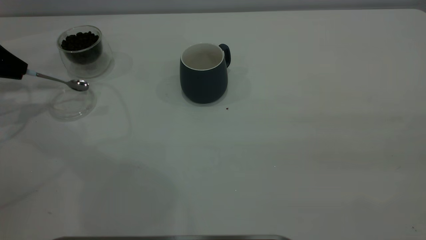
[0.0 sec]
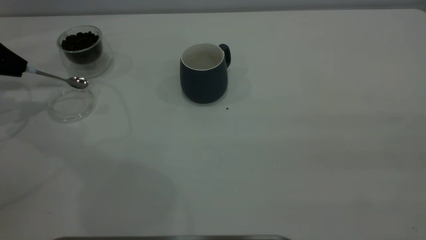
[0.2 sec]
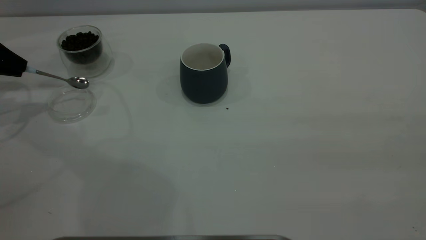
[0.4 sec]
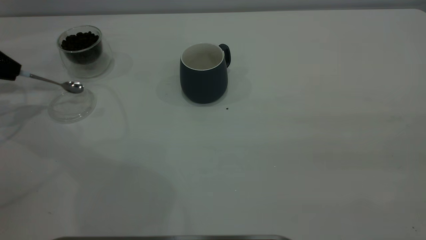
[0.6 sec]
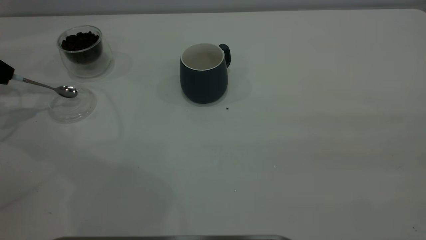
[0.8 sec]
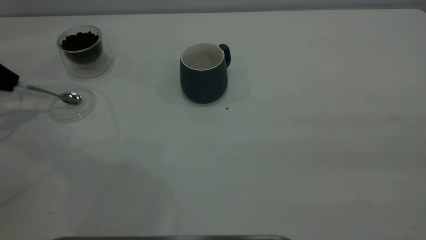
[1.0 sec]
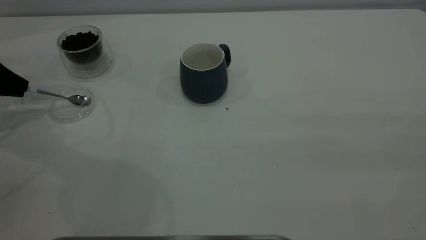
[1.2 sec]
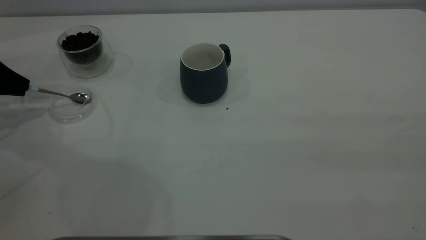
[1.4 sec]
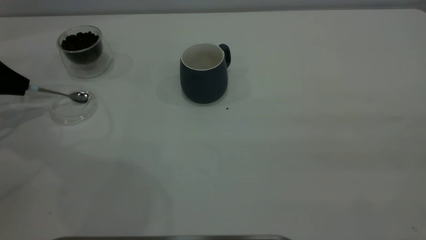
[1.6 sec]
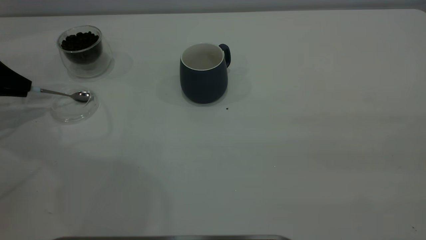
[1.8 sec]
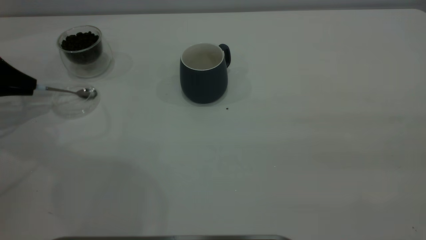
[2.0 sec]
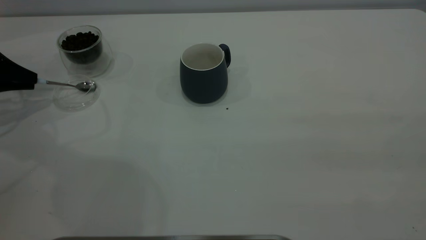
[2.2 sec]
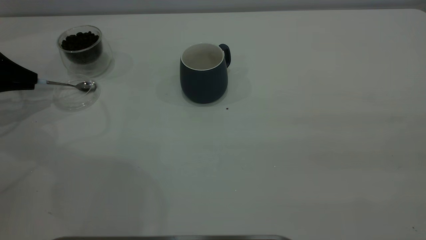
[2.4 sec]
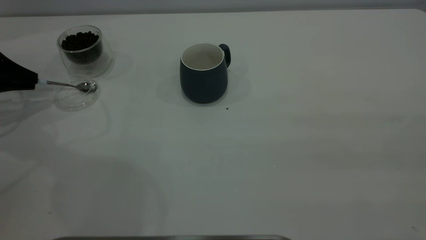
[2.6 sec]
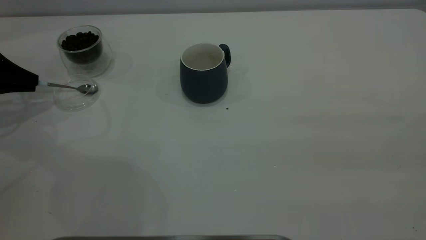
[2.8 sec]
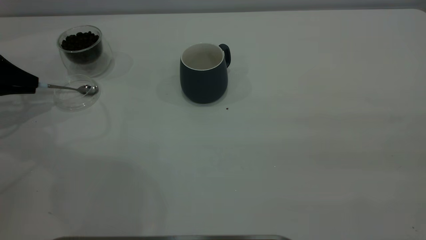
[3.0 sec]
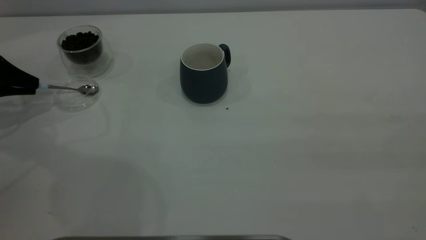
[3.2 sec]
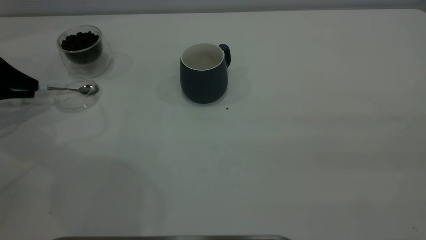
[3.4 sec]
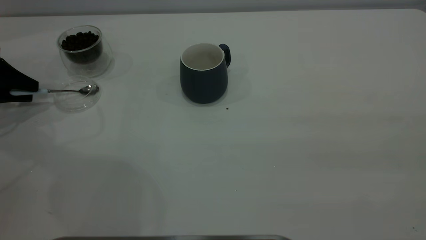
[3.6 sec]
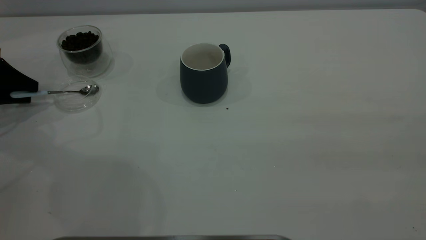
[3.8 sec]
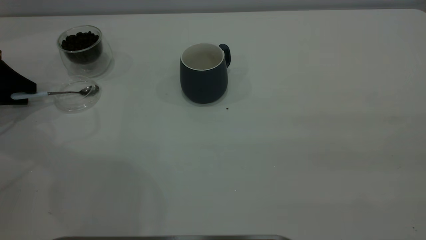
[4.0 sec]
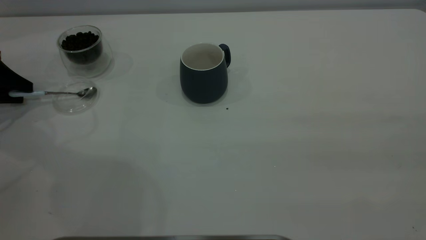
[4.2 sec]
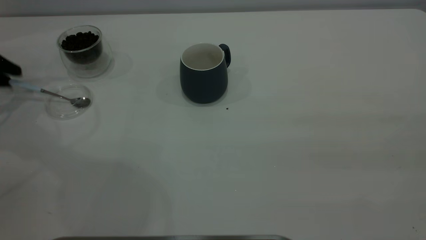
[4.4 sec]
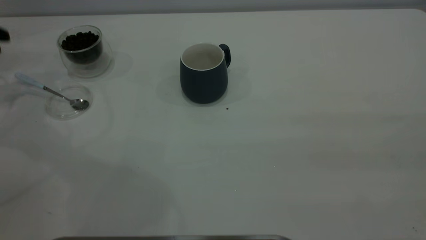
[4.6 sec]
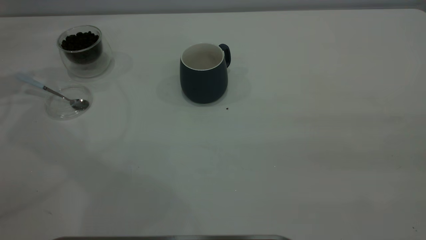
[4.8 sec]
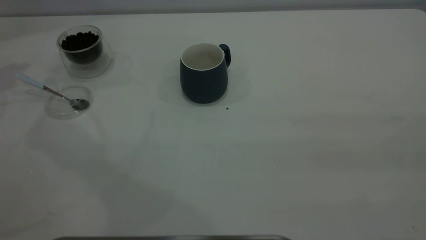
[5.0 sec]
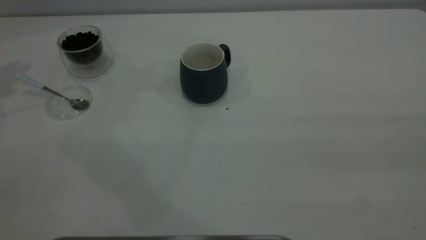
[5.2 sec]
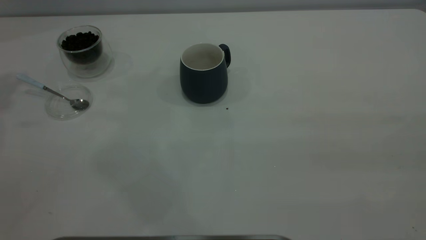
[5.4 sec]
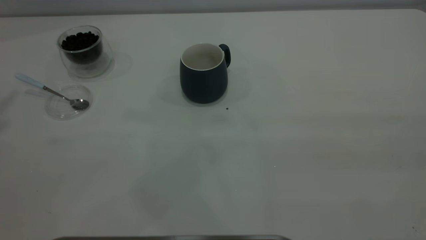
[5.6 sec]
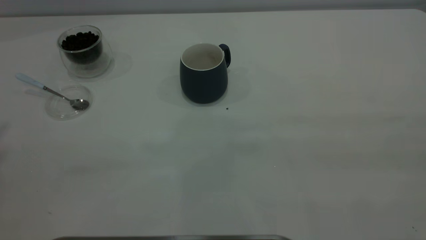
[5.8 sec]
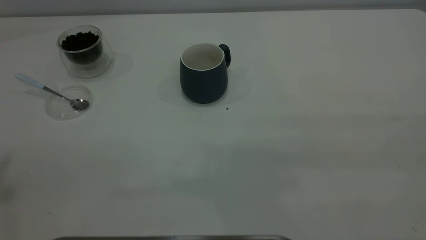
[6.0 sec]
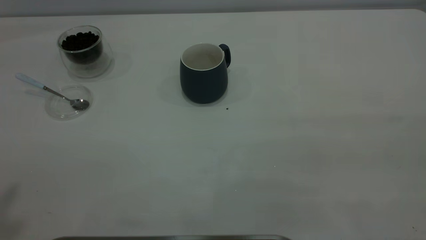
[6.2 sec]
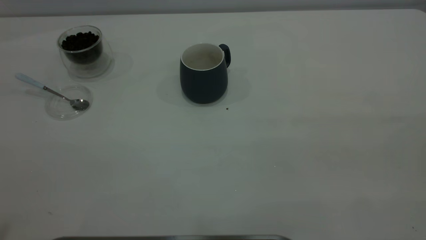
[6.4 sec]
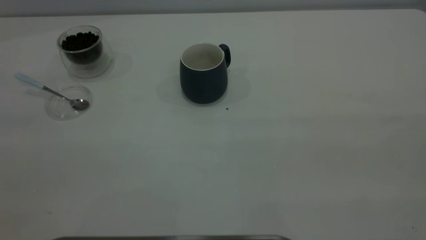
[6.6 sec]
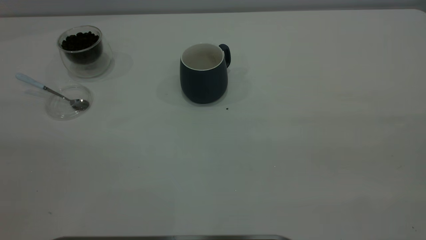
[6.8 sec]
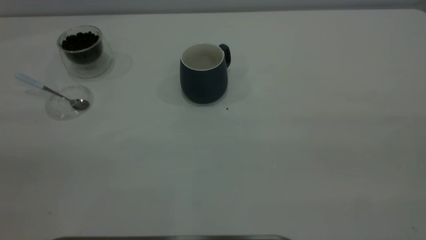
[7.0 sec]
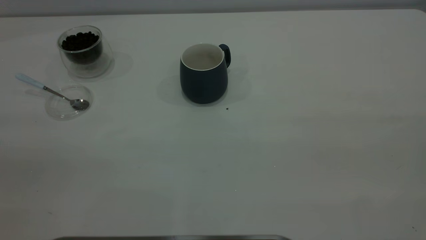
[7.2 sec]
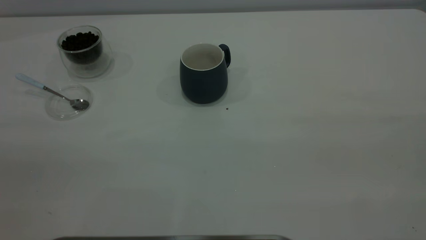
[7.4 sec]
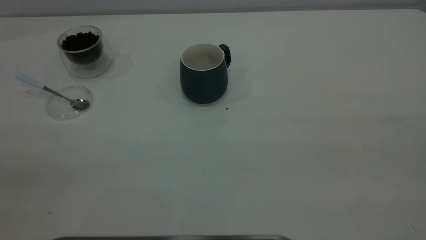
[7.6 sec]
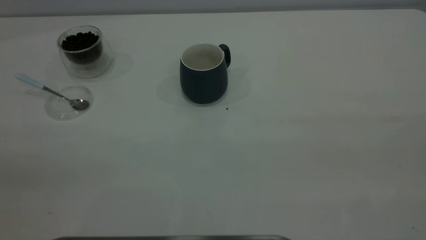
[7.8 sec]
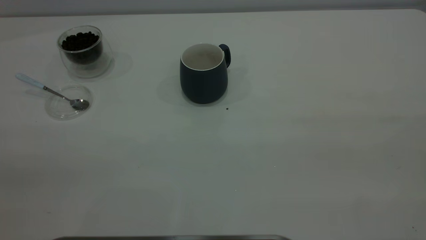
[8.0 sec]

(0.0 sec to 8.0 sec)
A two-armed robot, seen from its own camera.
Task of the whole recording: the right gripper place the grey cup in the center of the table, the left gripper take the blue spoon from the cup lid and scoop out the coffee beans from the coffee cup and put them into the grey cup, the left gripper put the spoon back into the cup lid.
Step, 0.0 sec - 4.4 sec: Place the spoon back in its original place.
0.0 sec - 3.2 sec: The grippers stay close to where they were, moving slightly.
3.2 sec - 4.8 sec: The left gripper goes about 15 cm upward, and opens.

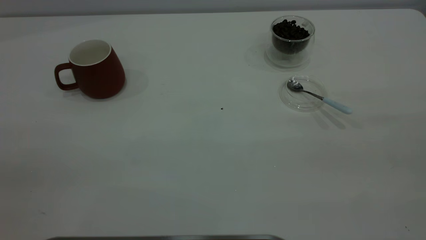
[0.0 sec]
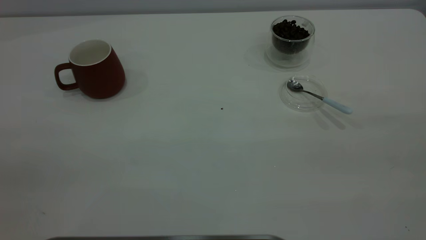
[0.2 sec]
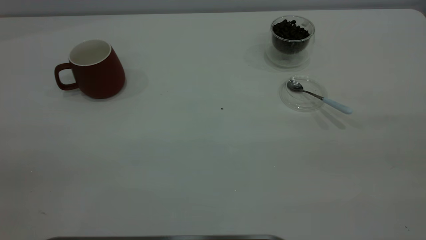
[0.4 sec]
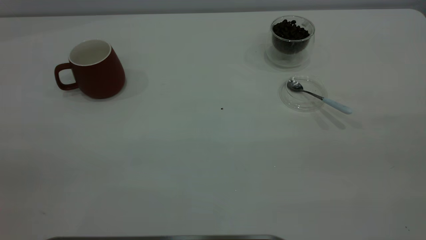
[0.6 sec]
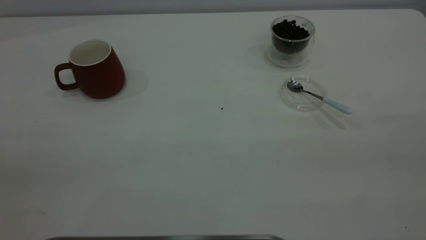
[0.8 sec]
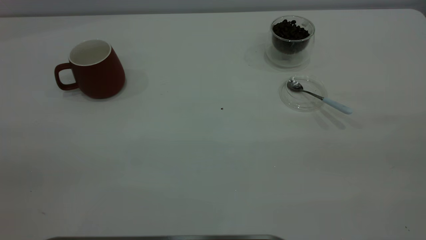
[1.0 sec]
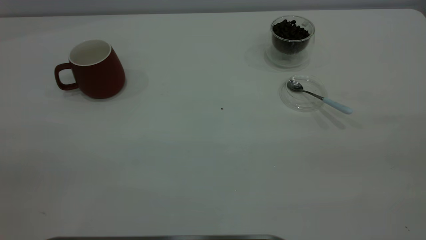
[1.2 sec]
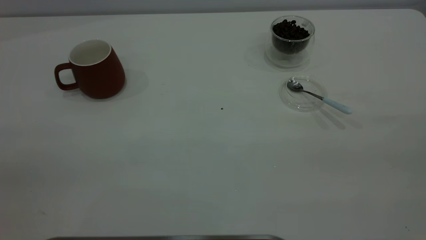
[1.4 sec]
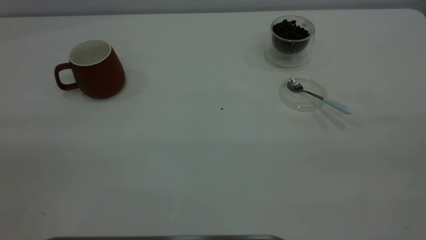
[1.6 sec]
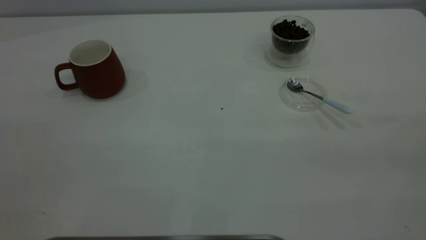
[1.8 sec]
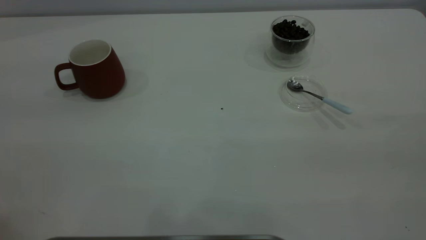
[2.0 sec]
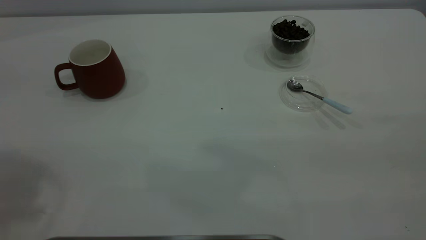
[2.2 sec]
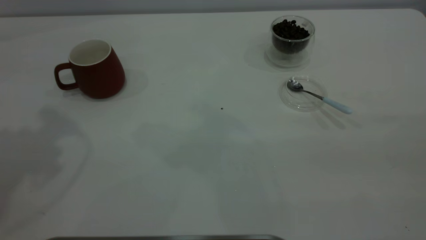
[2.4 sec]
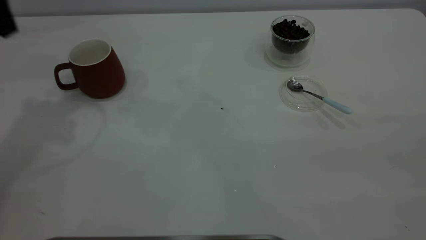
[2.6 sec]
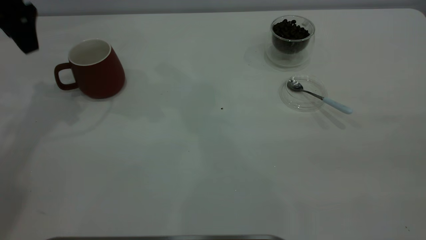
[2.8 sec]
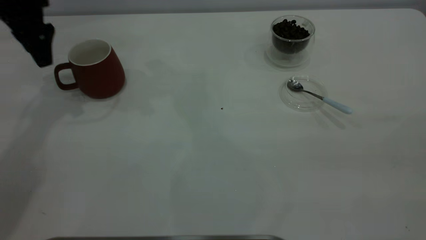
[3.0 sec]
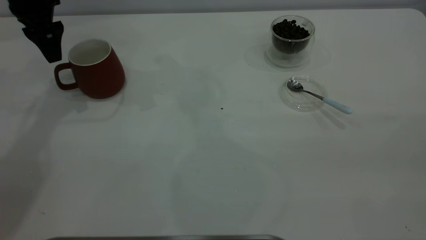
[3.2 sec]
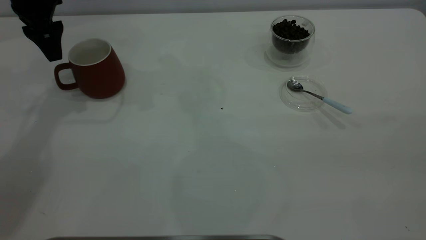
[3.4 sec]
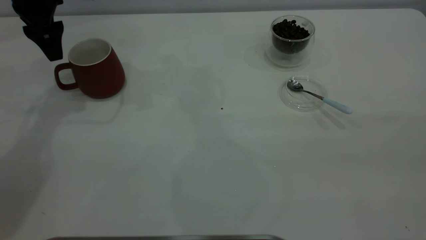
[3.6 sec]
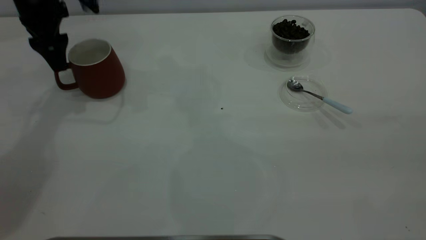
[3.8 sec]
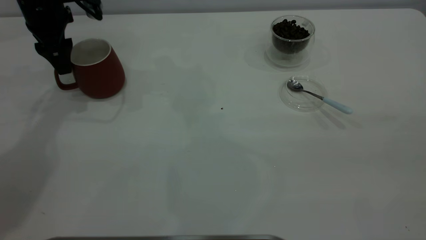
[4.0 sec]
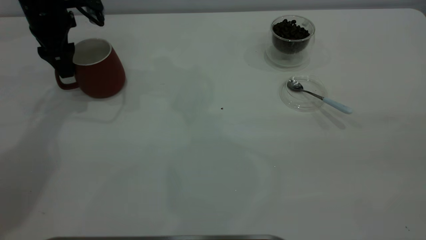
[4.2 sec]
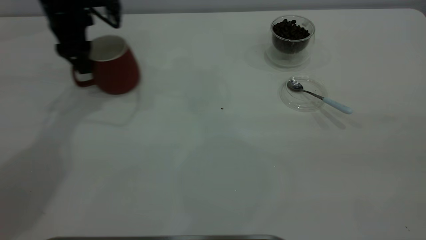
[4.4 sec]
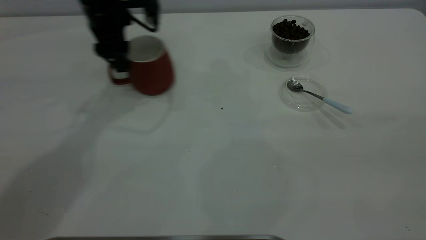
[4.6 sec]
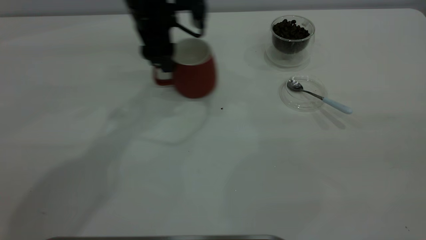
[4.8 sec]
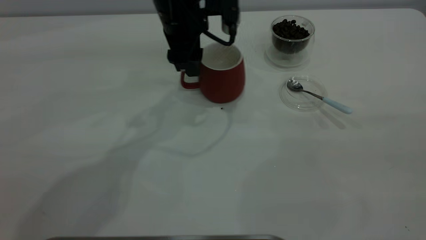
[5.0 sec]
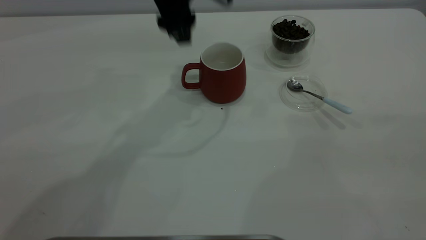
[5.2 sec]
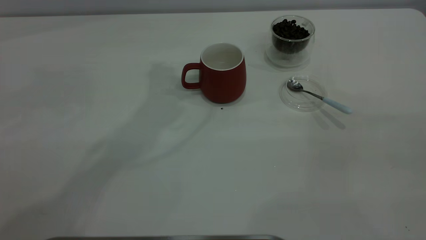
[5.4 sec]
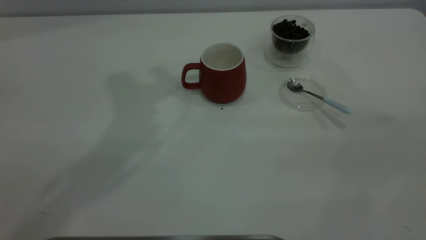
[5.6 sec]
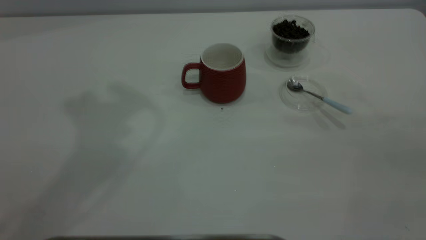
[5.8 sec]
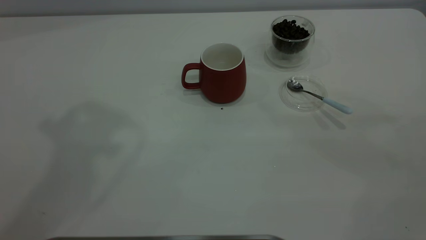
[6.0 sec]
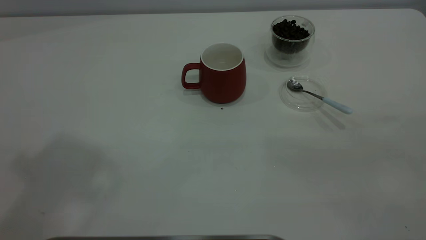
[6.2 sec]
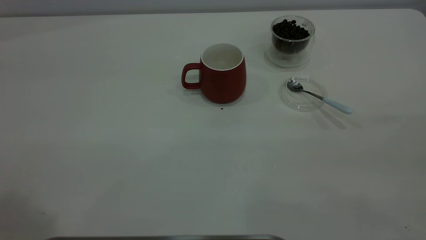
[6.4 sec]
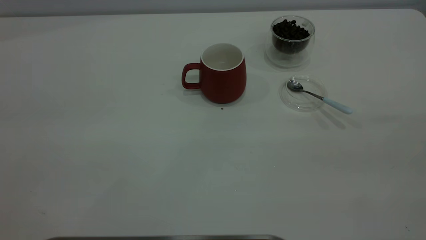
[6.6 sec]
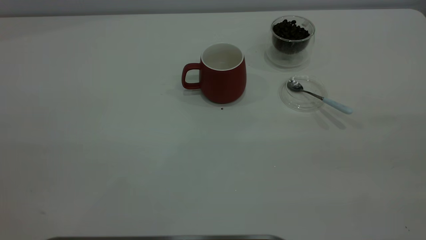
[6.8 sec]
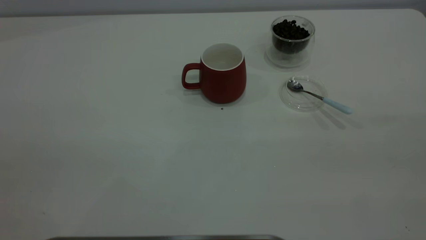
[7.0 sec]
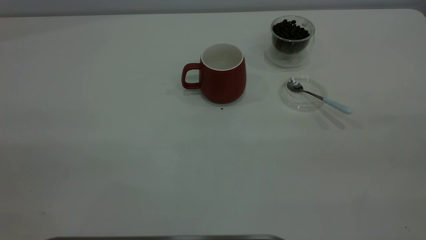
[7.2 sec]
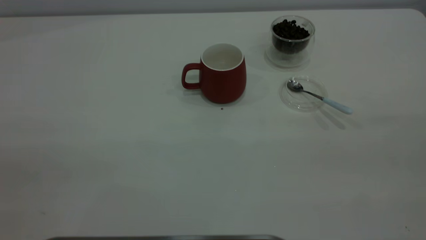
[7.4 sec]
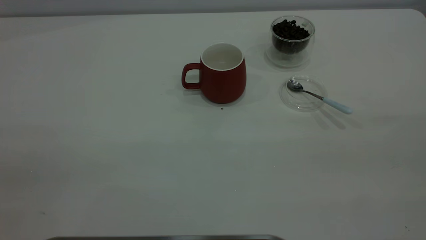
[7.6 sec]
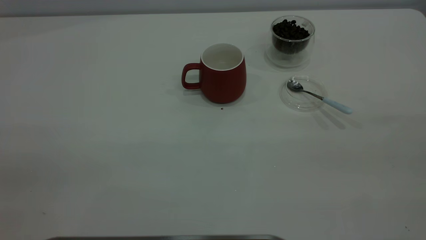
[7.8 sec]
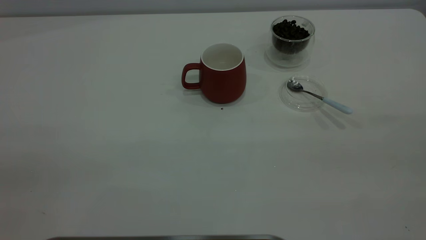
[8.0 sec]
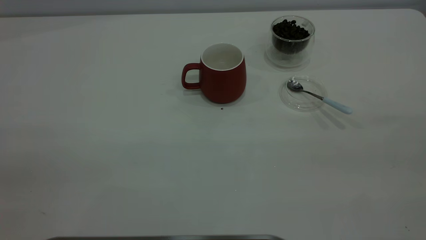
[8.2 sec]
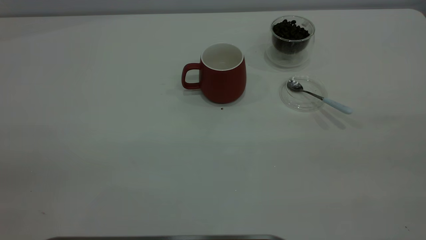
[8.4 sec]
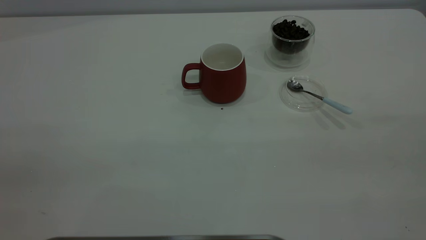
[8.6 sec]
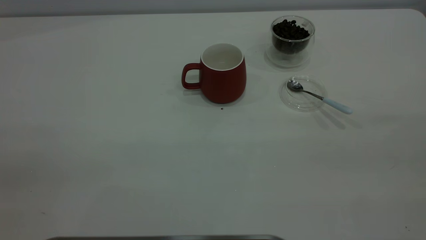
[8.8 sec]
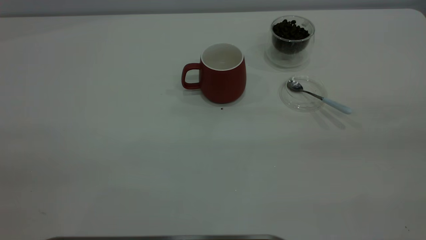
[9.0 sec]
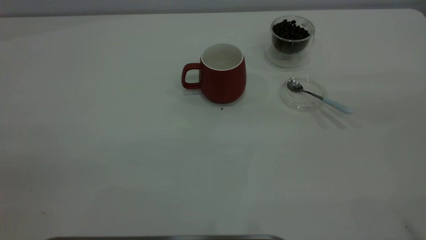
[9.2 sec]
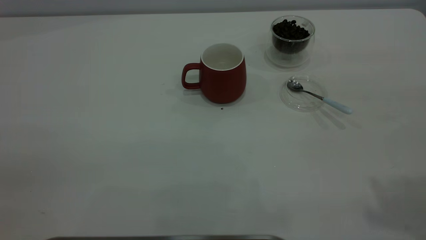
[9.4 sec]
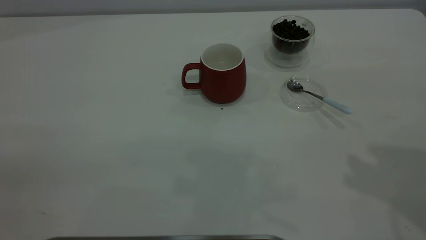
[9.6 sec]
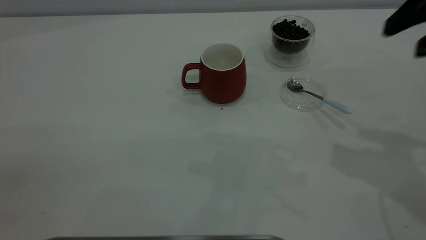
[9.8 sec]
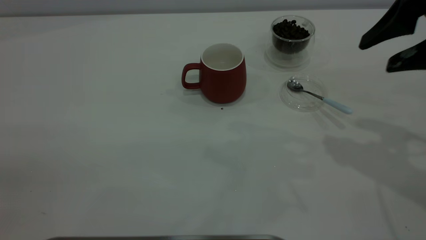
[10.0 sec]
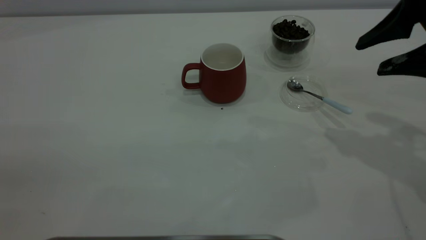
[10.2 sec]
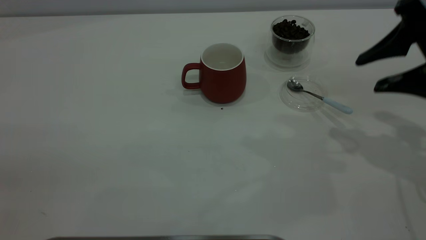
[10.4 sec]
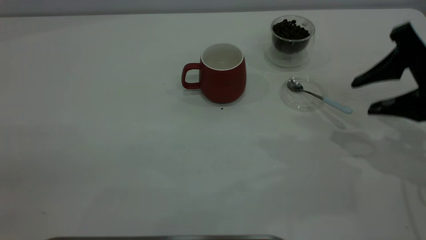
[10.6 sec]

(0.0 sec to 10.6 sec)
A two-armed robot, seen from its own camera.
Task of the whole recording: the left gripper place the red cup in the center of the table, the right gripper take the blue spoon from the cup lid and scoop out the coffee beans from the coffee cup and put them into the red cup, the right gripper put the spoon back into the cup lid.
Step, 0.0 sec - 5.0 sec: Move the cup to the center of view.
1.6 sec - 3.0 sec: The left gripper shifts roughly 50 cm forward and downward.
3.0 sec - 4.6 sec: The left gripper heads to the right, covering some 15 cm.
4.6 sec - 6.0 sec: The left gripper shifts some 40 cm upward and backward.
9.0 sec - 10.6 sec: The right gripper travels forward and downward by roughly 35 cm.
